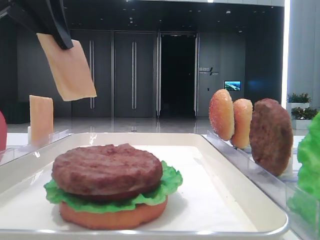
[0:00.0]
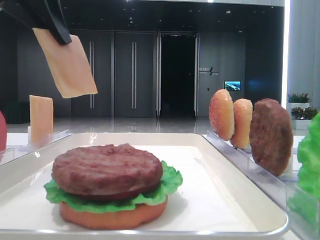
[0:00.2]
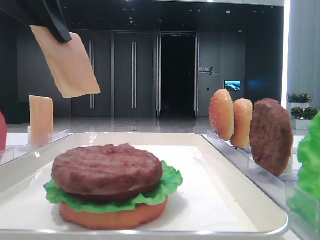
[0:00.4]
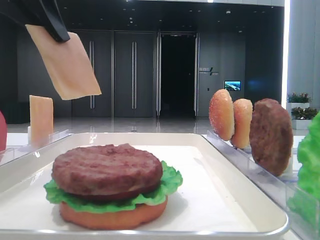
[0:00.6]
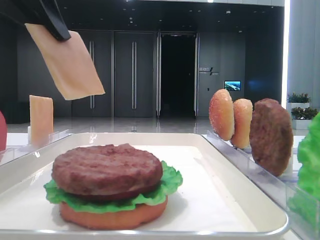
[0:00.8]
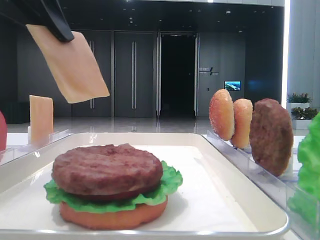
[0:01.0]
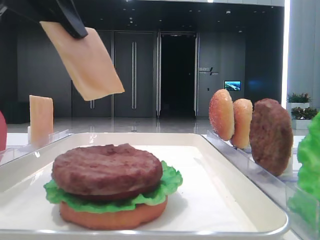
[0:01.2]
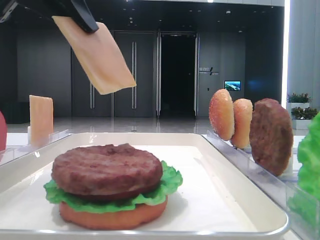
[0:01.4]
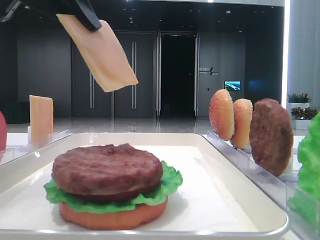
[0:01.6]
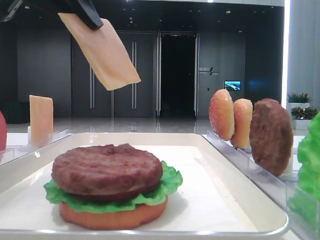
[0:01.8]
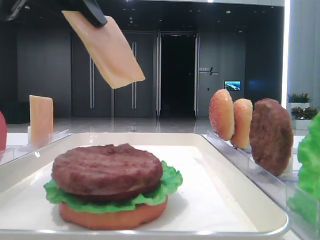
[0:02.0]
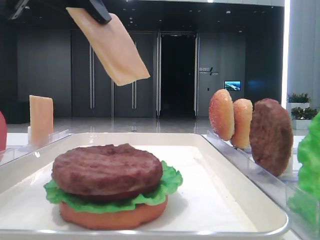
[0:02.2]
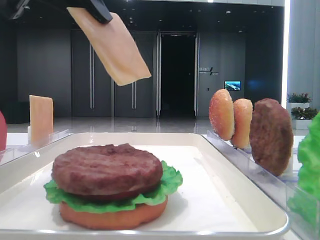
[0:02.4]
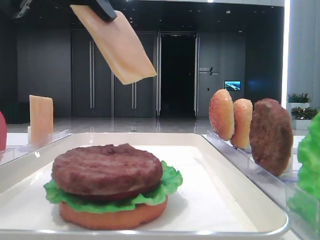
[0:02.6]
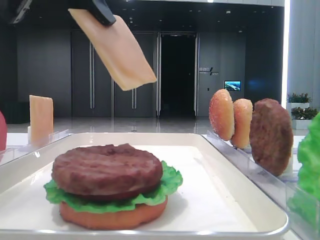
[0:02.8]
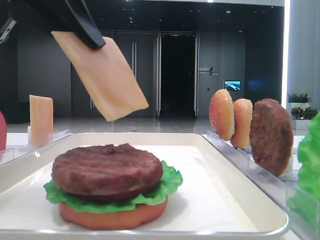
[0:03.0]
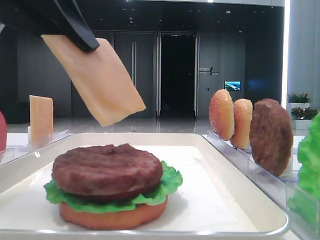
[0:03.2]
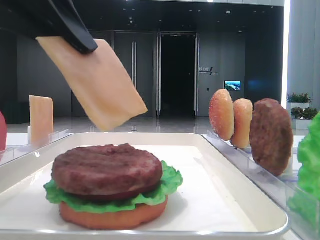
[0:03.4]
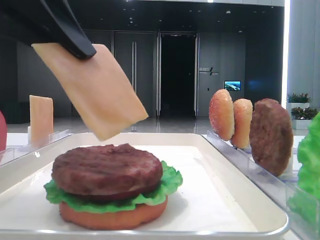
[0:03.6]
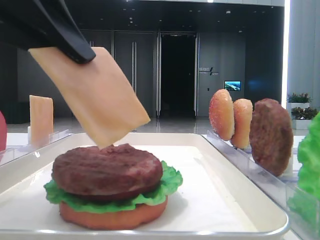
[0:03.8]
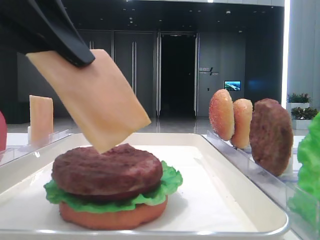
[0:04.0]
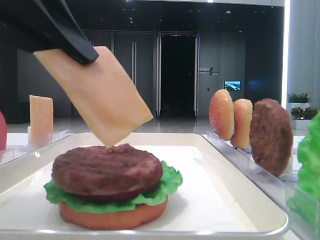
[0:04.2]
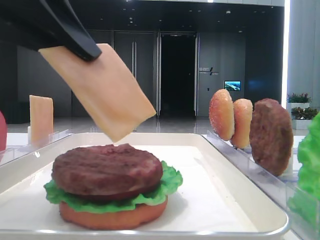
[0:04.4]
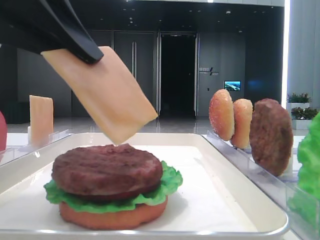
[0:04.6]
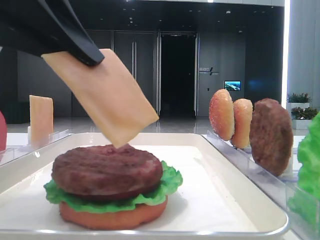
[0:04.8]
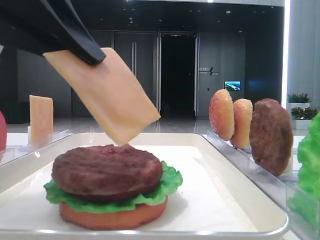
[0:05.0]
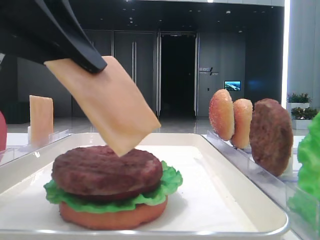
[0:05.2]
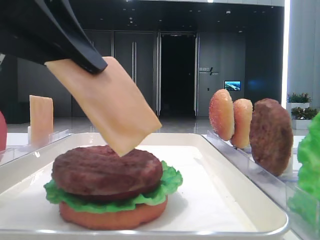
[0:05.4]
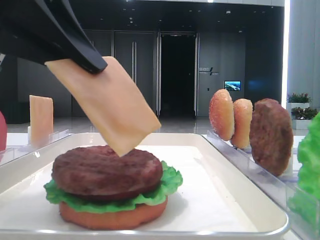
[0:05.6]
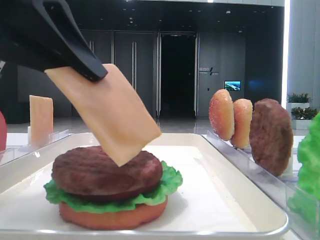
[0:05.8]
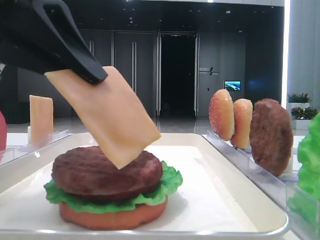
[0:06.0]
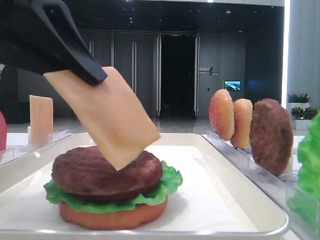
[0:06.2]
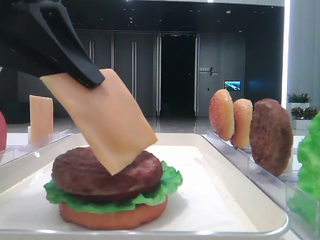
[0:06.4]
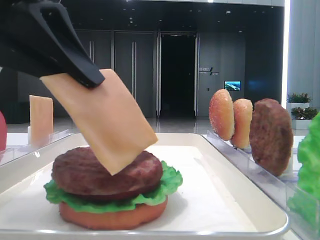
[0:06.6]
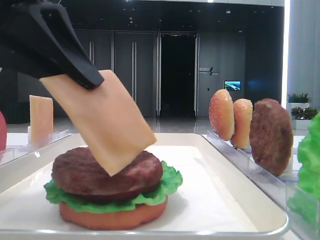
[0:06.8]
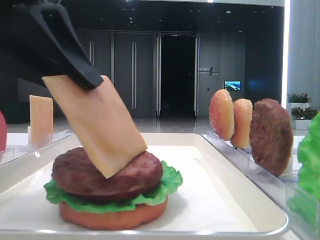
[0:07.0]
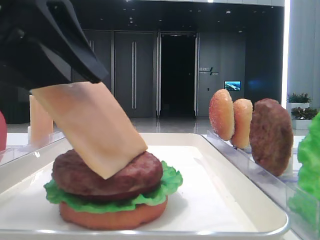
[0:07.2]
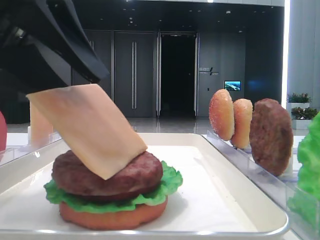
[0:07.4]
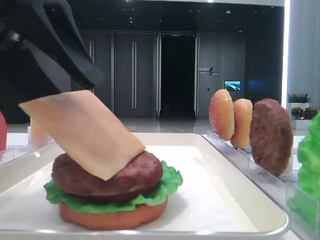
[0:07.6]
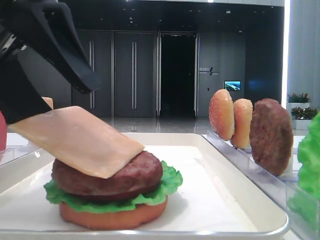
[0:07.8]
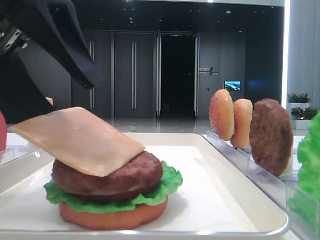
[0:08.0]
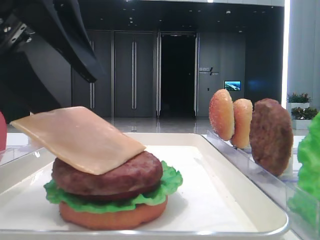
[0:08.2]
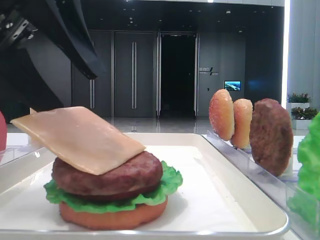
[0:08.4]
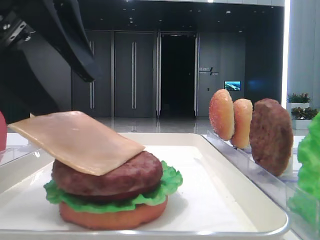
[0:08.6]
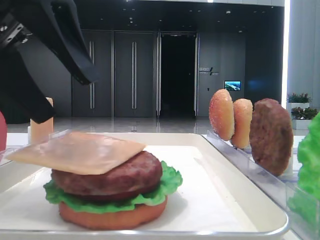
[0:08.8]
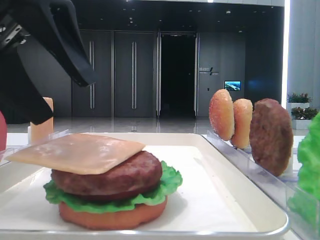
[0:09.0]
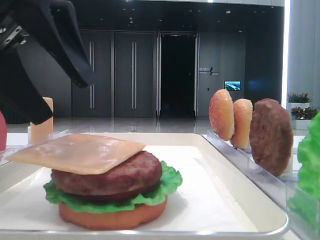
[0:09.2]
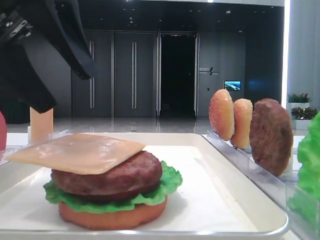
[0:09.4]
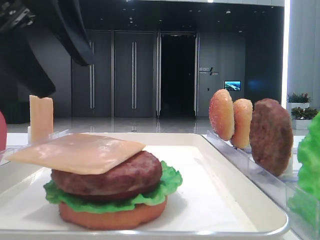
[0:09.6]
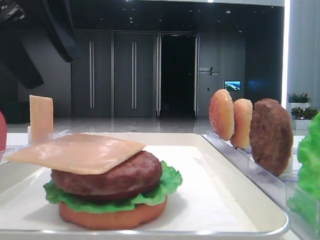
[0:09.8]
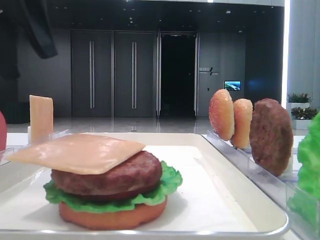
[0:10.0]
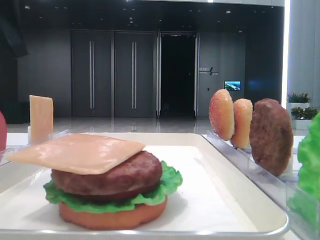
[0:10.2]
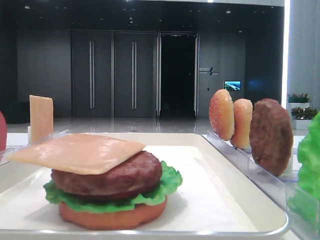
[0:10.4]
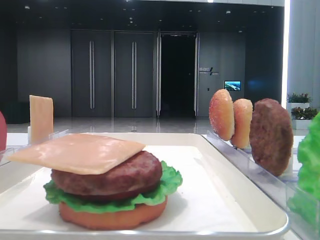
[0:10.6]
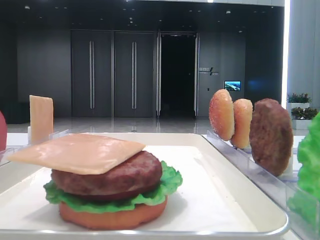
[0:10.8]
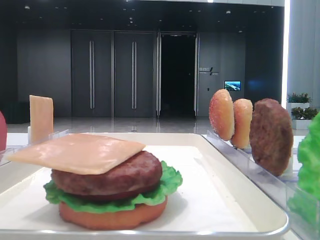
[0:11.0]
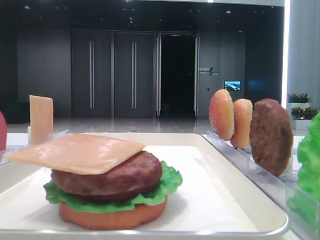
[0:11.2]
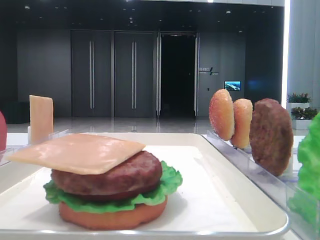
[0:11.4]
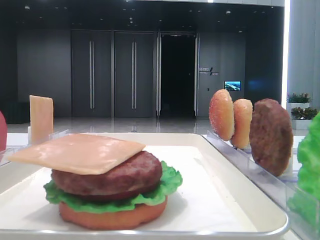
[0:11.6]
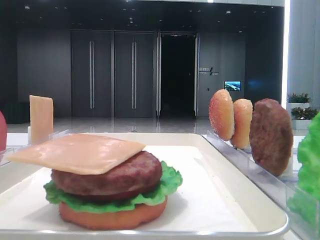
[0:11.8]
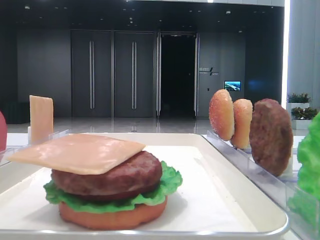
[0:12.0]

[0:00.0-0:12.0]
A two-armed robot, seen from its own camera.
Step, 0:00.0 to 0:08.6: Place the cheese slice on the patty with the left hand.
0:00.0 to 0:01.6: The left gripper heads backward, covering roughly 5 cm.
0:01.6 to 0:03.0: The grippers stay close to where they were, moving slightly.
0:03.0 to 0:06.0: The grippers move only a little.
0:06.0 to 0:07.6: The left gripper opens its fingers.
0:07.6 to 0:09.0: There are only small adjustments of the grippers.
0:09.0 to 0:10.4: The left gripper goes roughly 10 cm to the left and upward.

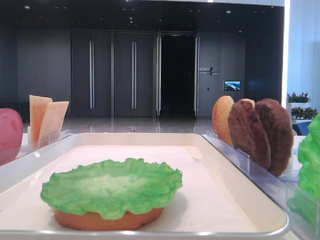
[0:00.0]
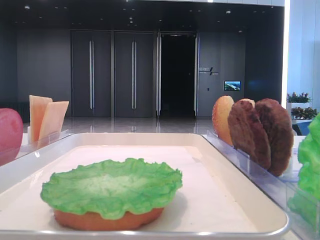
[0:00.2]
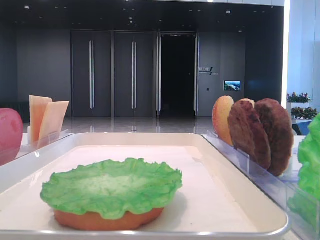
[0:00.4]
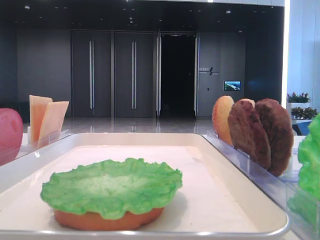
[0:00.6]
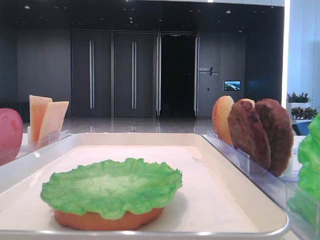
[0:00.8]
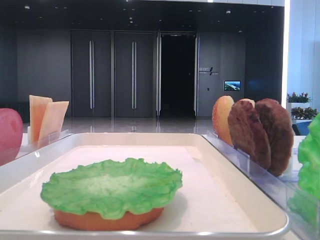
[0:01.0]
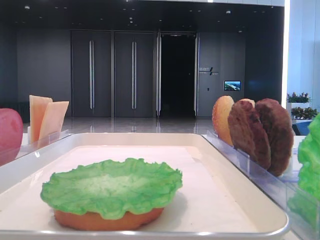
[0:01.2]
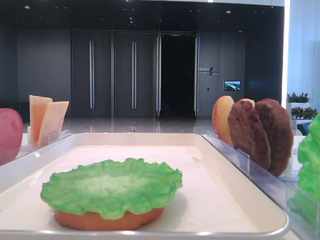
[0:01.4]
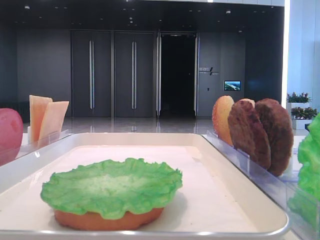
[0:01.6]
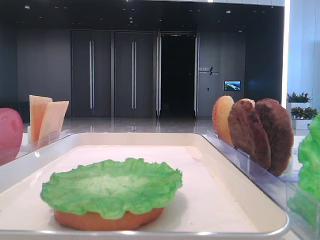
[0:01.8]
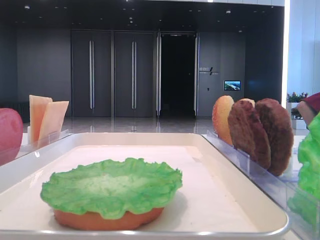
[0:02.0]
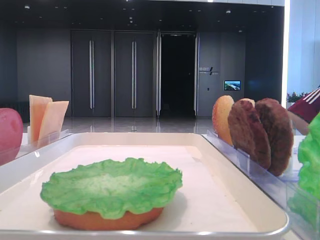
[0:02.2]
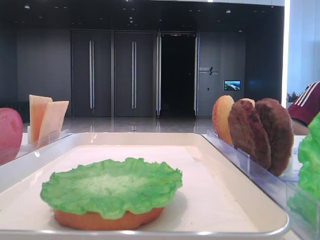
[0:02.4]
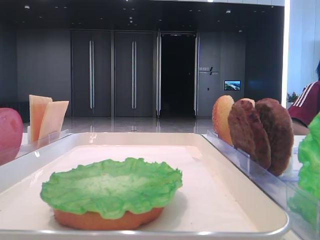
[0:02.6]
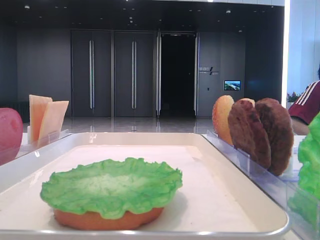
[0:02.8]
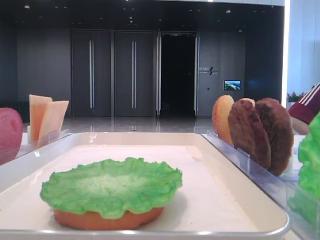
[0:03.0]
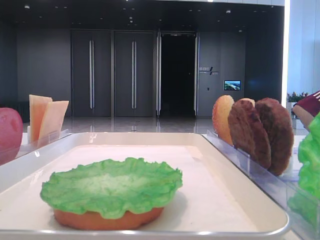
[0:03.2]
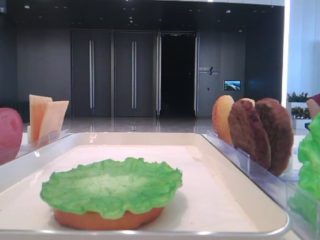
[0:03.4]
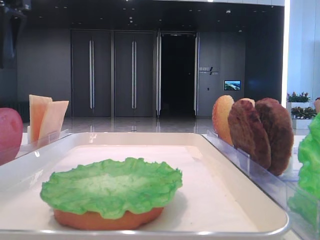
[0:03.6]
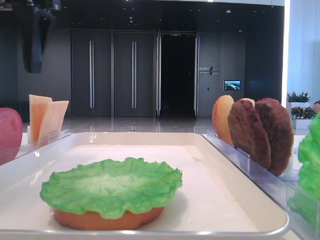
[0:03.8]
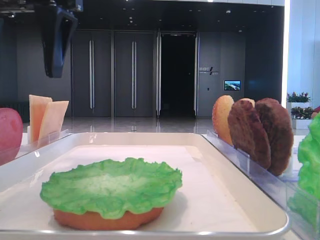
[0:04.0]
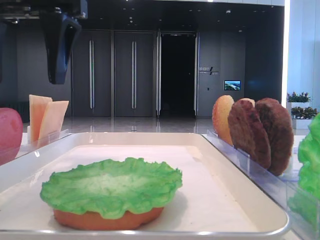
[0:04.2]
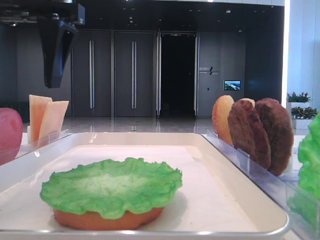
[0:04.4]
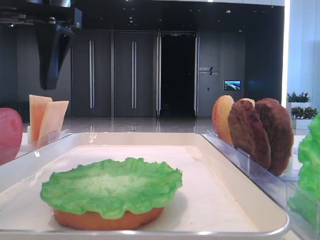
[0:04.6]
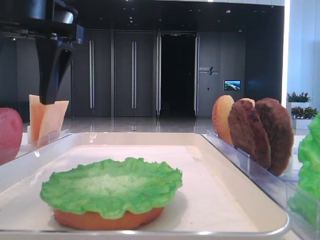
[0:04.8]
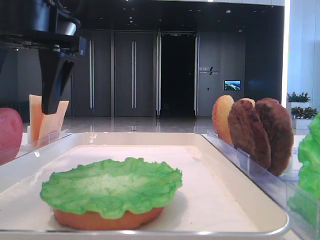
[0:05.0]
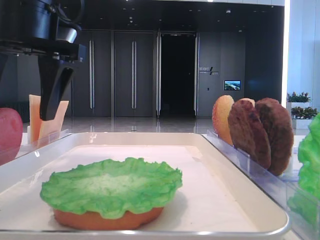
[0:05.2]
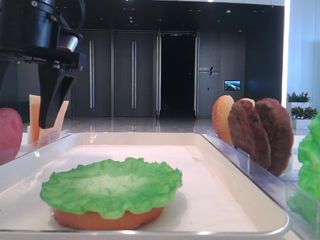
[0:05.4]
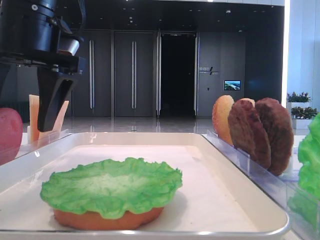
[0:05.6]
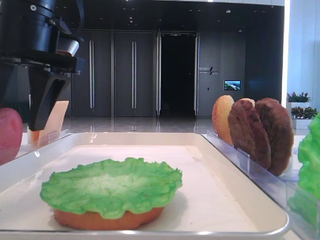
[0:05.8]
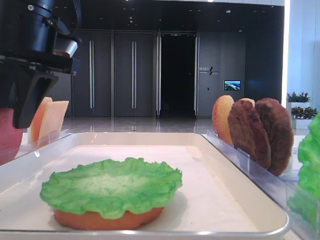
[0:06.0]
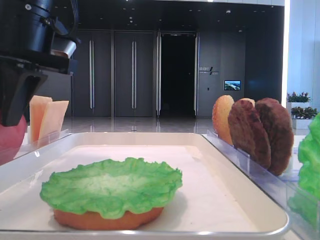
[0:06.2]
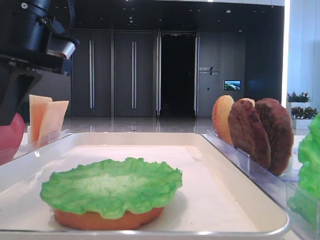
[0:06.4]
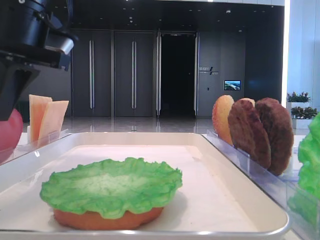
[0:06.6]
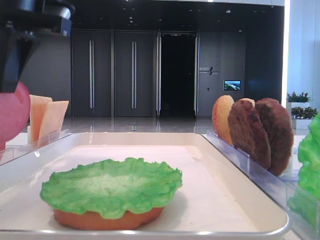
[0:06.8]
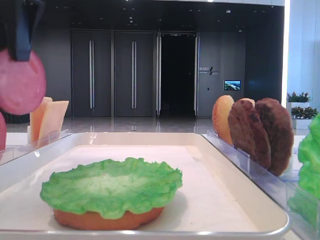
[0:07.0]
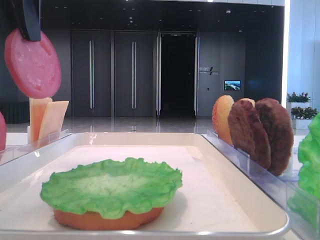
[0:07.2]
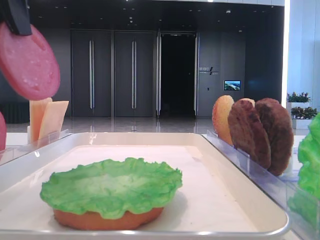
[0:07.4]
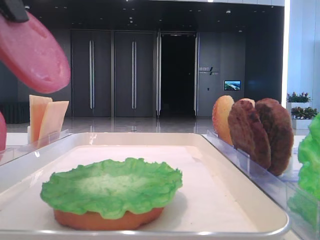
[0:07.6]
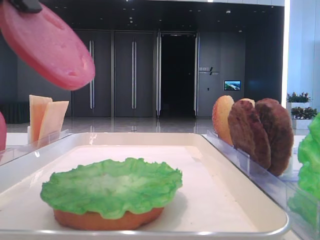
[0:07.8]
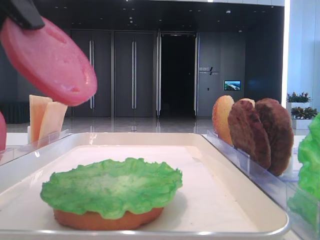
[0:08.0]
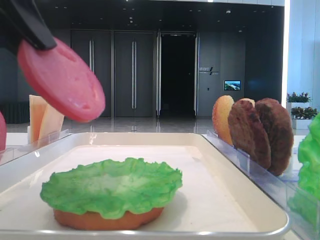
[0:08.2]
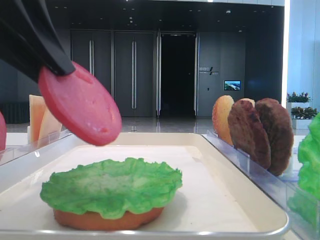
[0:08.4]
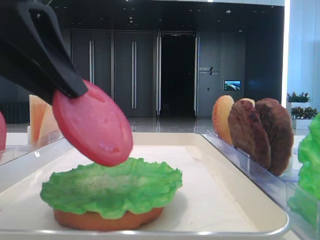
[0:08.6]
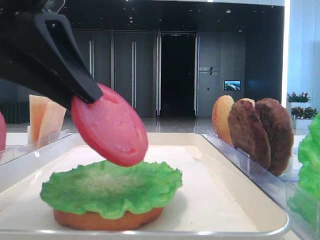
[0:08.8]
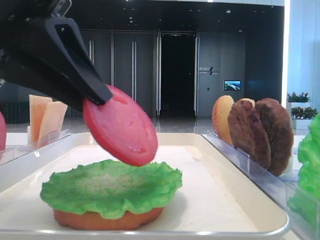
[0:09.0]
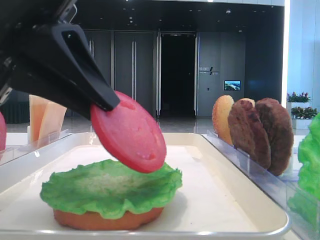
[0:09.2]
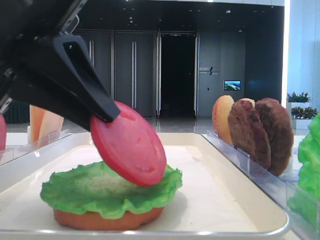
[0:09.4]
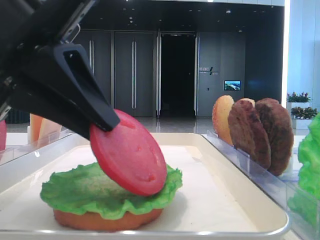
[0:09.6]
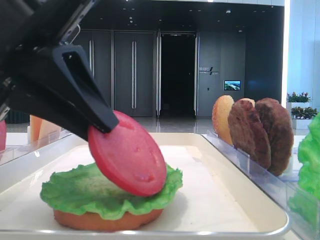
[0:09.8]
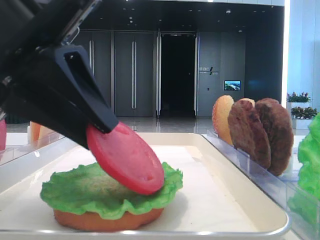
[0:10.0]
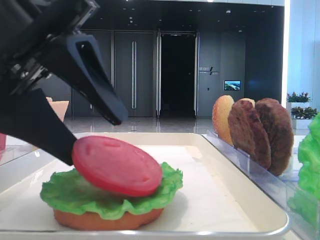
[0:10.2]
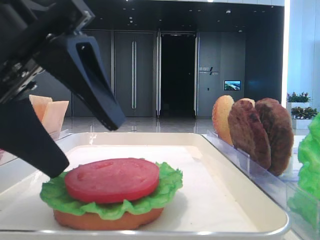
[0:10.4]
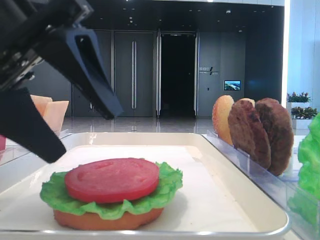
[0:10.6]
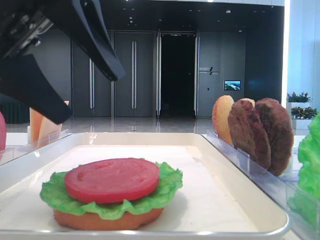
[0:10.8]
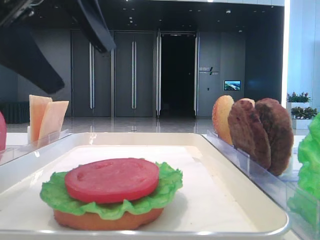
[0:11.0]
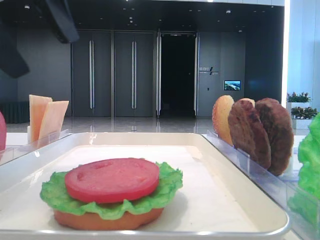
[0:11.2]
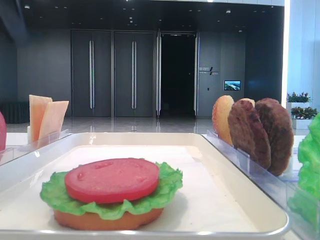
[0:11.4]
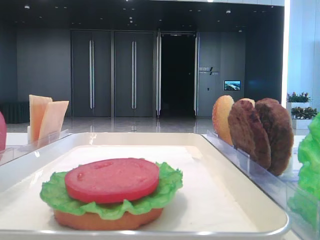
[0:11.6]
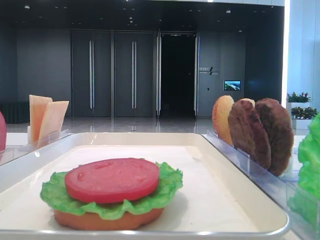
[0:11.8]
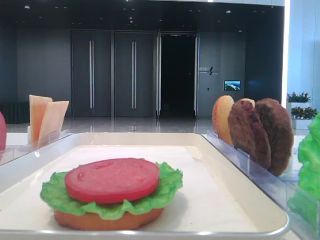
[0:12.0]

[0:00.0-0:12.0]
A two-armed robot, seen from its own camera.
Step, 0:00.0 to 0:06.2: Pick up the tomato slice with the left hand.
Step, 0:06.4 to 0:10.2: Place the tomato slice on the lettuce leaf with the left hand.
0:03.0 to 0:04.4: The left gripper travels to the right by roughly 15 cm.
0:04.4 to 0:06.0: The left gripper closes up.
0:06.0 to 0:07.6: The left gripper travels backward and upward by about 15 cm.
0:07.6 to 0:09.0: The left gripper travels downward by about 10 cm.
0:09.0 to 0:10.4: The left gripper opens.
0:10.4 to 0:12.0: The left gripper moves to the left and upward, about 20 cm.
